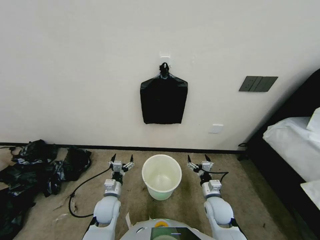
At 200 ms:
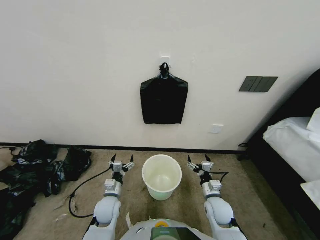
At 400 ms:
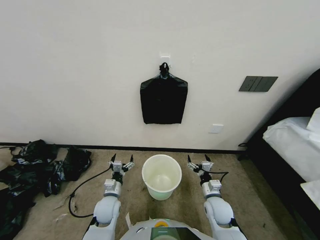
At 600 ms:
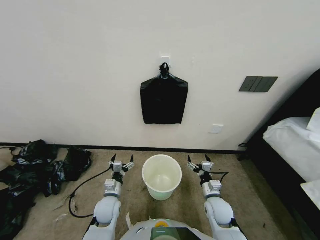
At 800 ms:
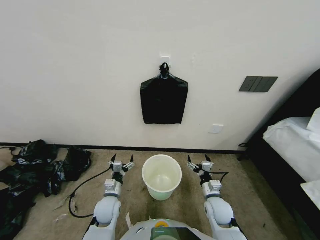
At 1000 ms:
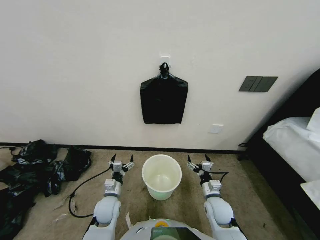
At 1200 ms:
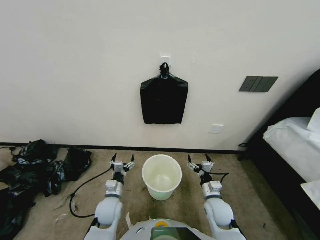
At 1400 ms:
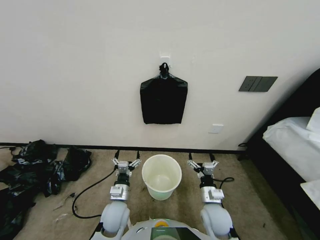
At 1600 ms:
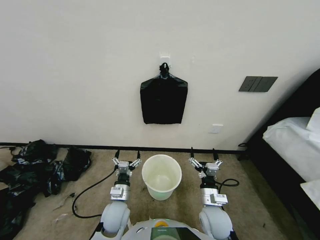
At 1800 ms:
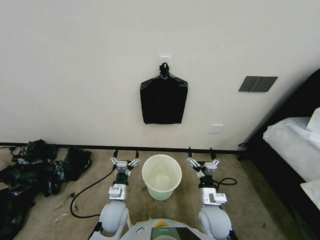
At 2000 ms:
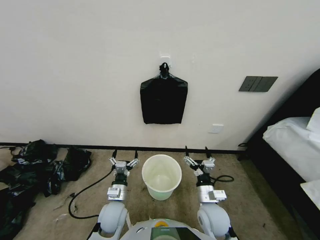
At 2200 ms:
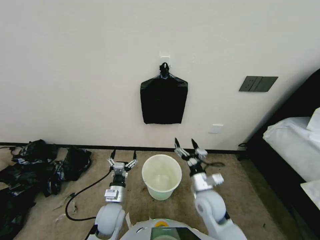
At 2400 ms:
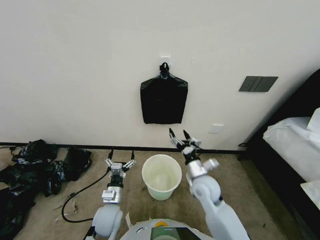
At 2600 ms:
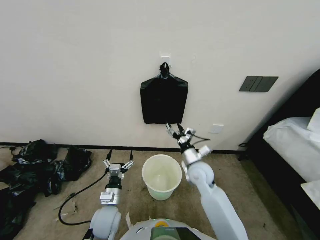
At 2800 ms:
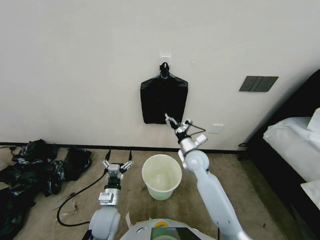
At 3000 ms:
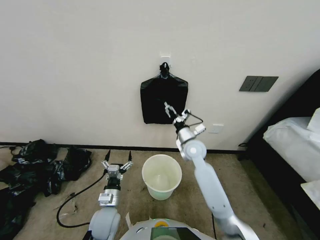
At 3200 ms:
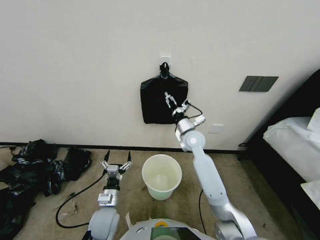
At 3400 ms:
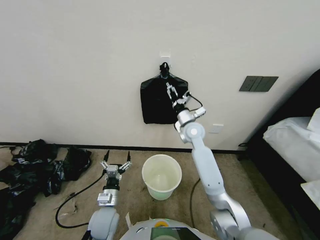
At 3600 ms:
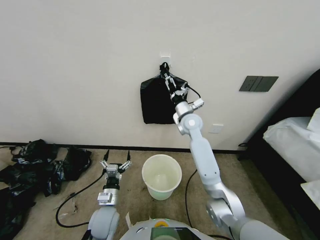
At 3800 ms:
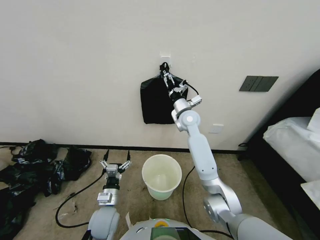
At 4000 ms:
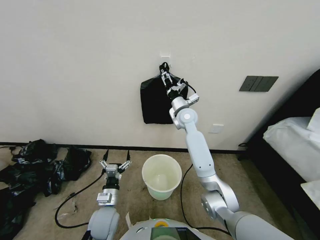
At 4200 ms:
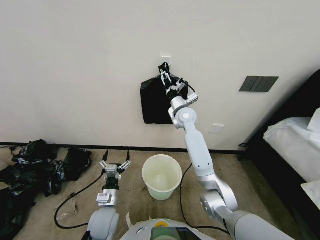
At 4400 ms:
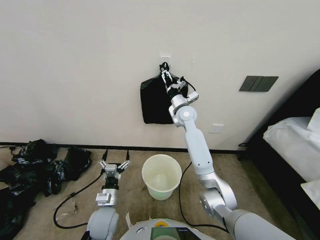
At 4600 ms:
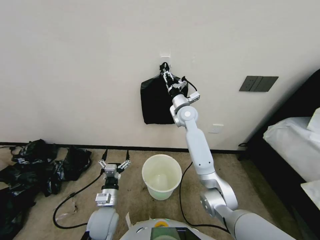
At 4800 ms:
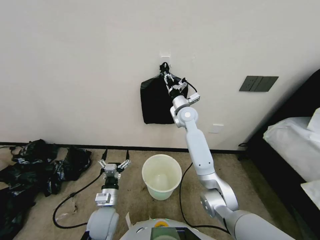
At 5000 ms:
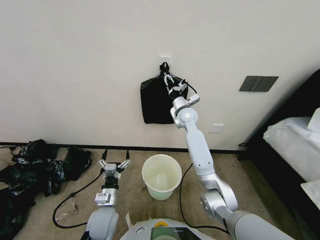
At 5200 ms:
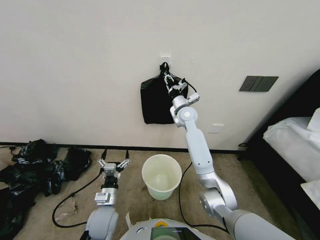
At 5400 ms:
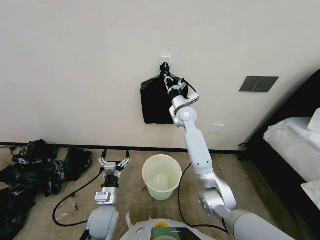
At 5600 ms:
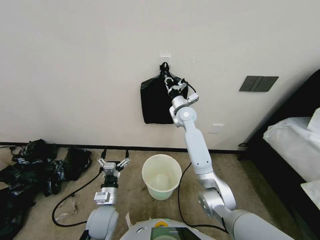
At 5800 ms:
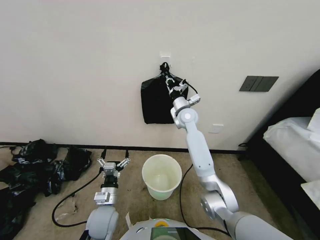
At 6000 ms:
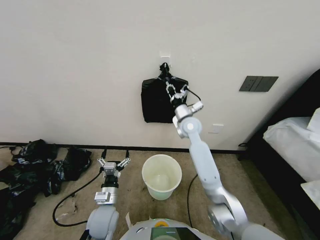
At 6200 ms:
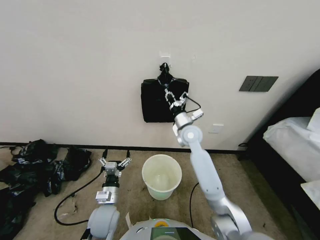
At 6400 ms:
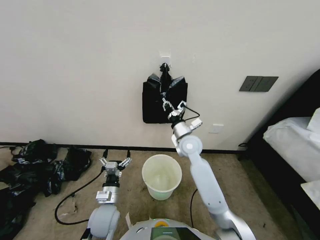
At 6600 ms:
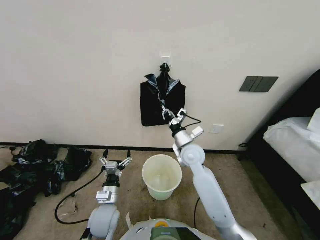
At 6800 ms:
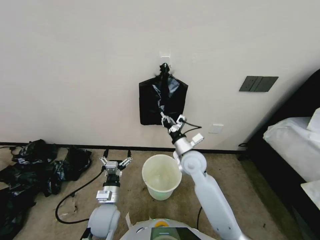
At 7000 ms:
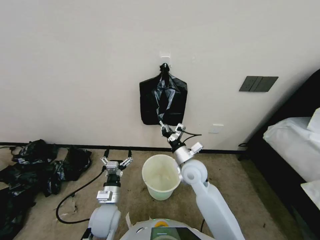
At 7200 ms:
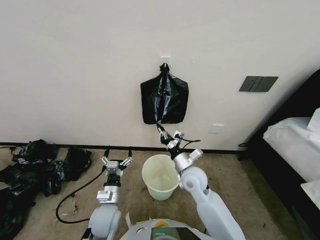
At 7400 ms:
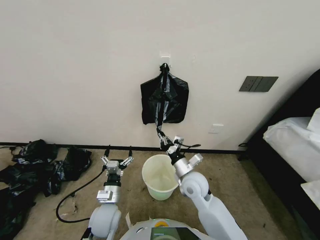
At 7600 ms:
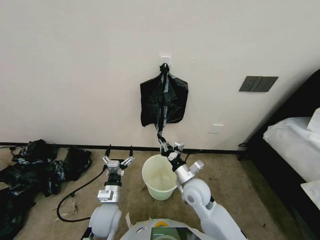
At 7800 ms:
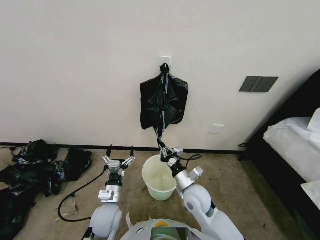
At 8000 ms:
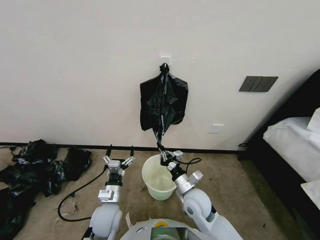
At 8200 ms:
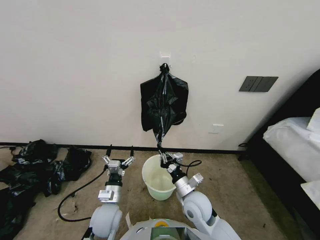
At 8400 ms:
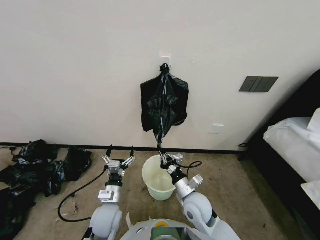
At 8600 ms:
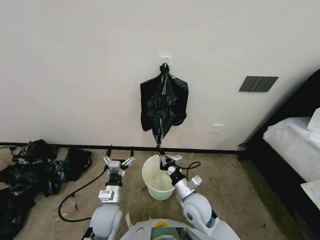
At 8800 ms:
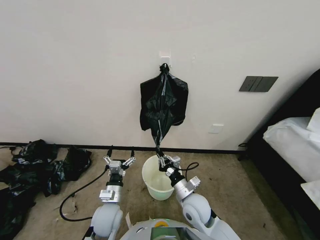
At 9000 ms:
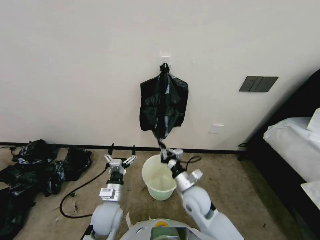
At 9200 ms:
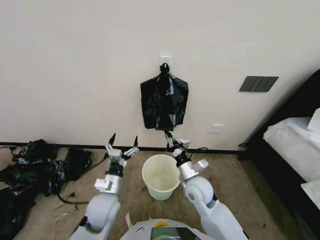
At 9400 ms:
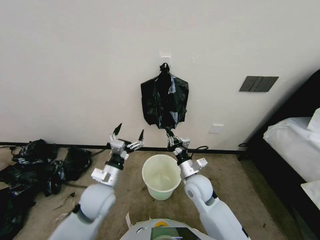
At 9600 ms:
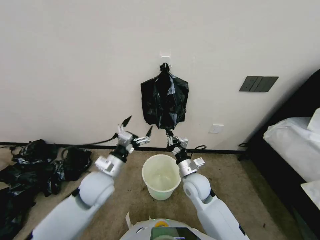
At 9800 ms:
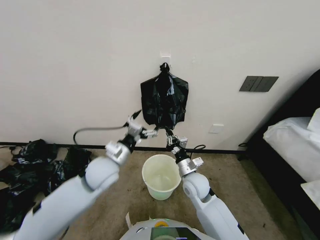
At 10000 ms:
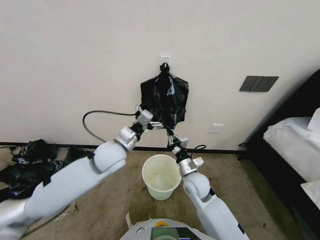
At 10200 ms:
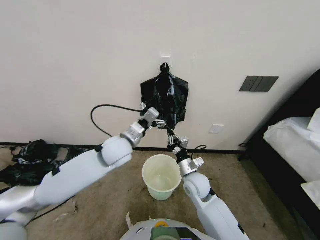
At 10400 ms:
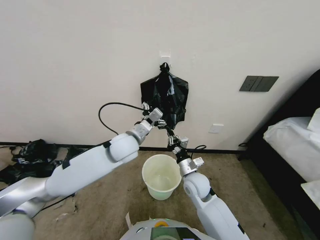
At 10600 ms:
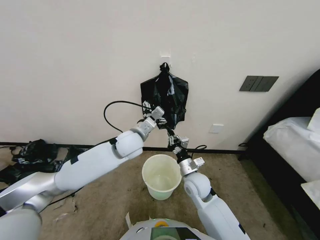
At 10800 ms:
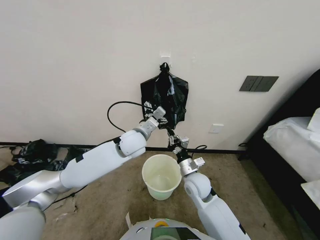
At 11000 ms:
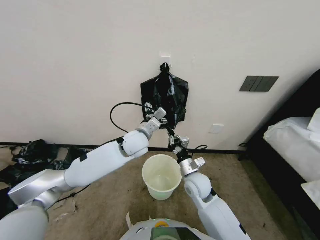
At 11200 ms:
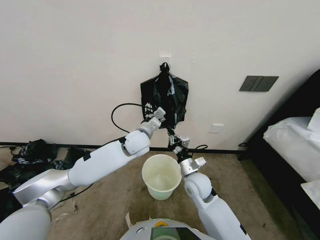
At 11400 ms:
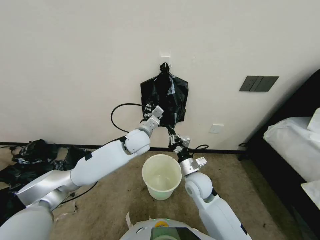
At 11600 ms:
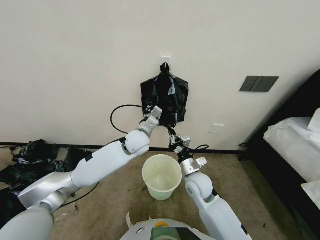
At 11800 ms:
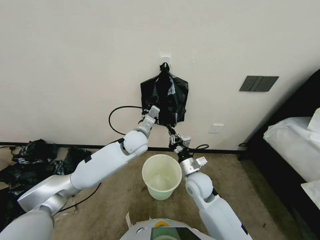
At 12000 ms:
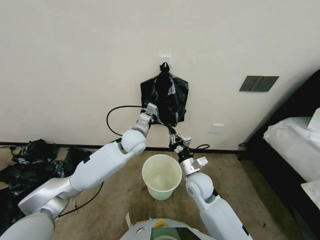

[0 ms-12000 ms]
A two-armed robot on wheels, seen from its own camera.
Task of the whole recording: Place a trash bag onto the trash bin.
1600 ms to 3000 ms: The right gripper moves forward and upward, approximately 25 cm.
3000 ms to 4400 ms: The right gripper heads forward and upward, covering approximately 15 cm.
4400 ms to 6000 ms: The right gripper closes its fingers.
6000 ms to 7600 ms: The right gripper travels backward and downward by some 25 cm.
7600 ms to 9000 ms: The right gripper changes place by some 5 cm.
9000 ms to 10400 ms: The left gripper moves upward and forward, roughly 25 cm, while the right gripper is displaced forward by approximately 5 cm.
10400 ms to 12000 ms: The left gripper is displaced forward by roughly 5 cm, and closes.

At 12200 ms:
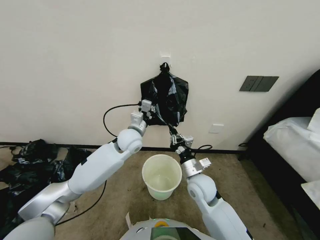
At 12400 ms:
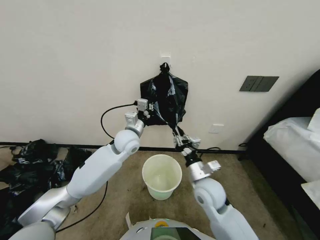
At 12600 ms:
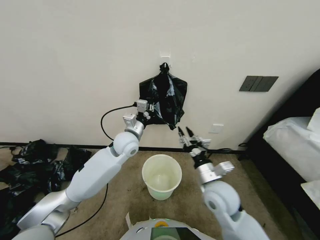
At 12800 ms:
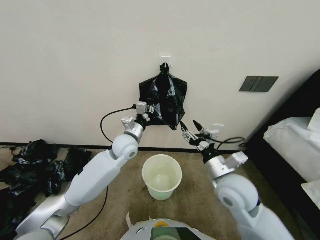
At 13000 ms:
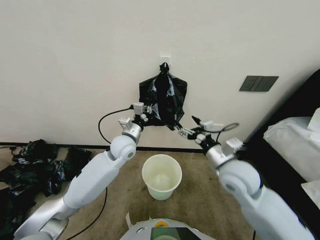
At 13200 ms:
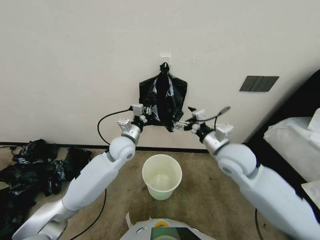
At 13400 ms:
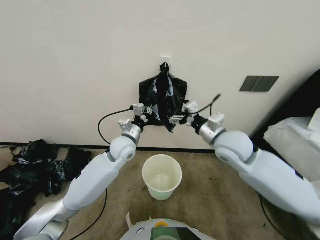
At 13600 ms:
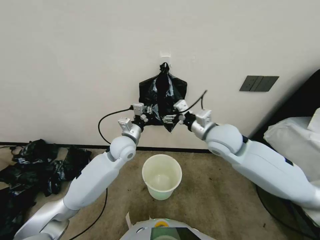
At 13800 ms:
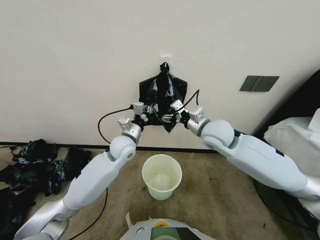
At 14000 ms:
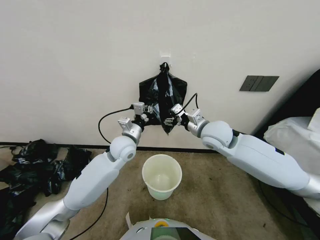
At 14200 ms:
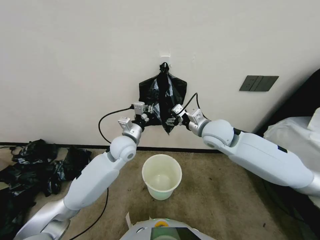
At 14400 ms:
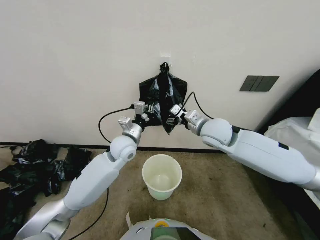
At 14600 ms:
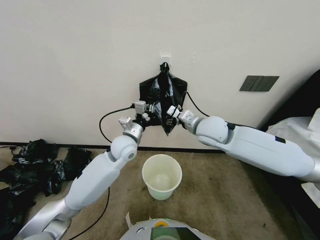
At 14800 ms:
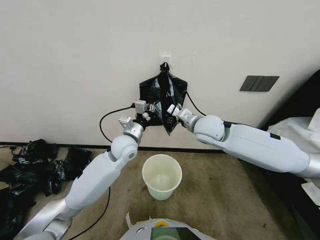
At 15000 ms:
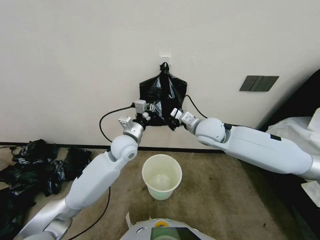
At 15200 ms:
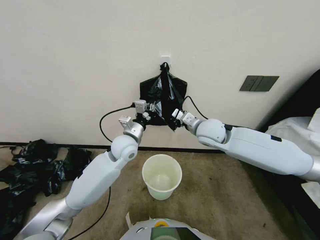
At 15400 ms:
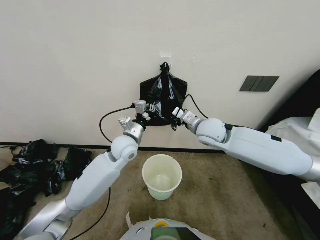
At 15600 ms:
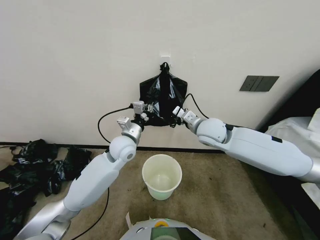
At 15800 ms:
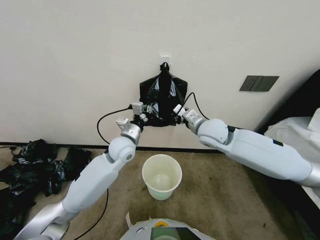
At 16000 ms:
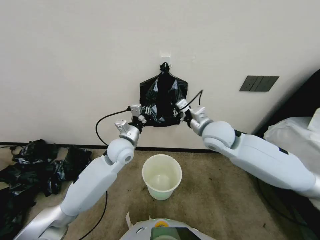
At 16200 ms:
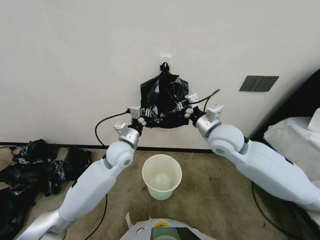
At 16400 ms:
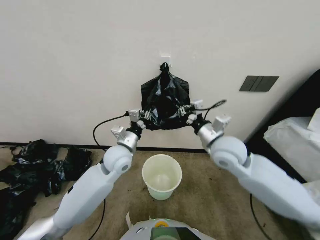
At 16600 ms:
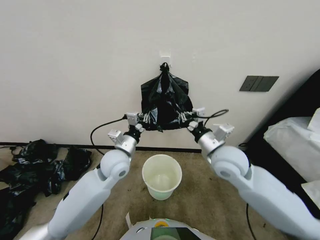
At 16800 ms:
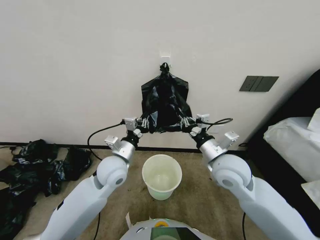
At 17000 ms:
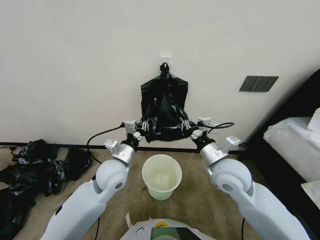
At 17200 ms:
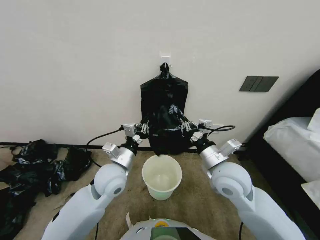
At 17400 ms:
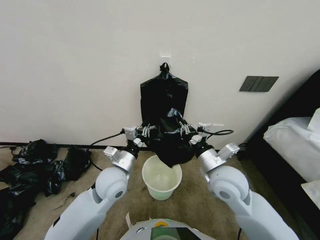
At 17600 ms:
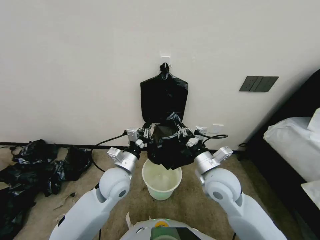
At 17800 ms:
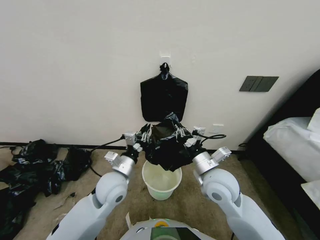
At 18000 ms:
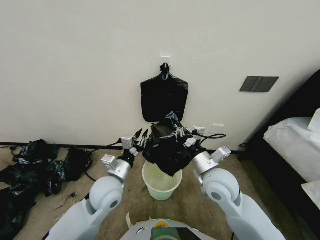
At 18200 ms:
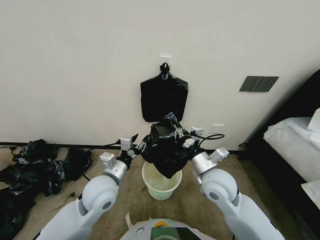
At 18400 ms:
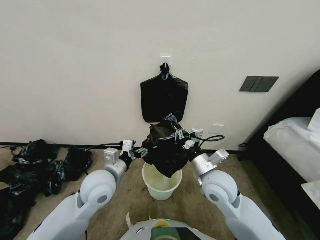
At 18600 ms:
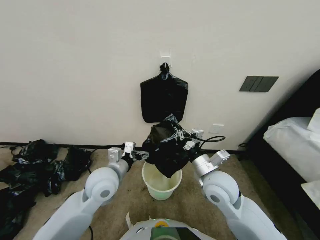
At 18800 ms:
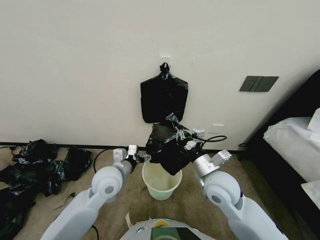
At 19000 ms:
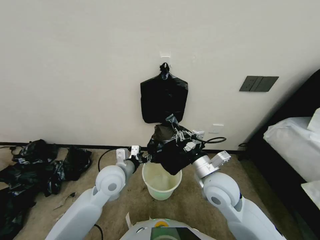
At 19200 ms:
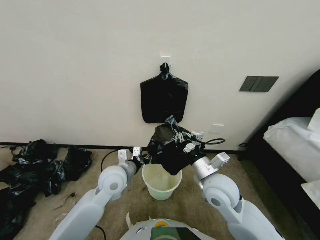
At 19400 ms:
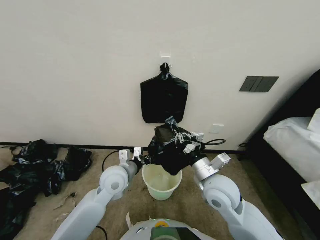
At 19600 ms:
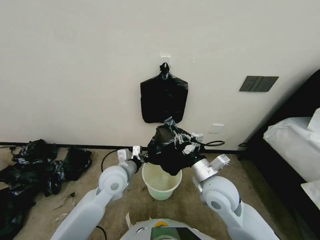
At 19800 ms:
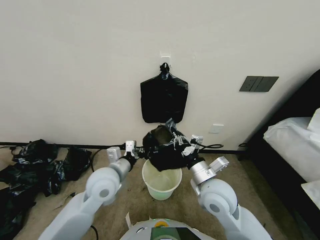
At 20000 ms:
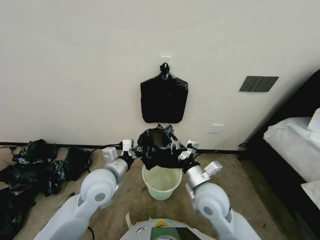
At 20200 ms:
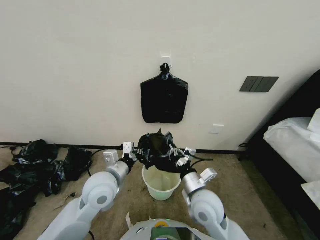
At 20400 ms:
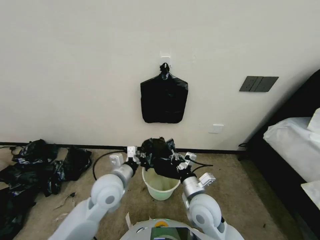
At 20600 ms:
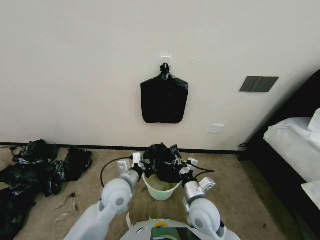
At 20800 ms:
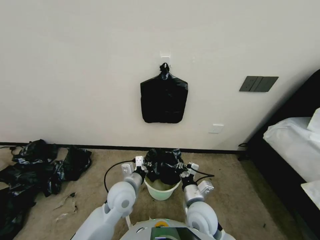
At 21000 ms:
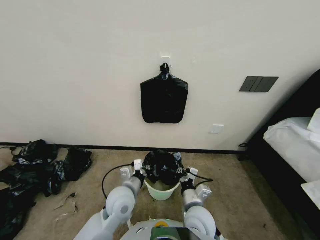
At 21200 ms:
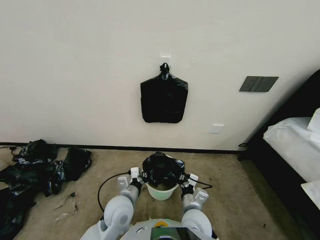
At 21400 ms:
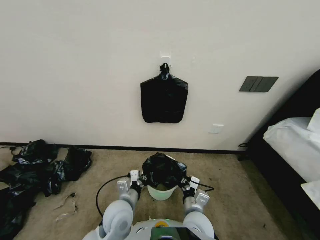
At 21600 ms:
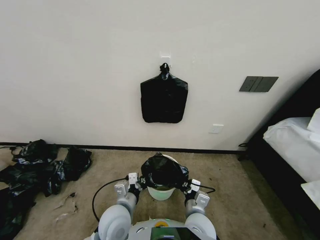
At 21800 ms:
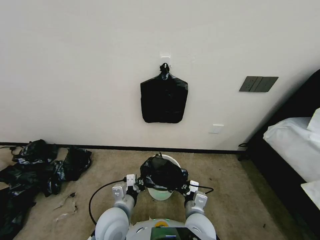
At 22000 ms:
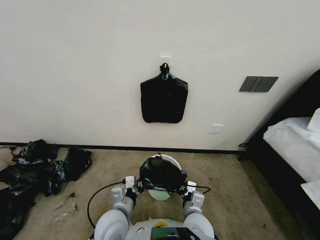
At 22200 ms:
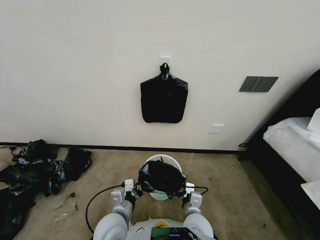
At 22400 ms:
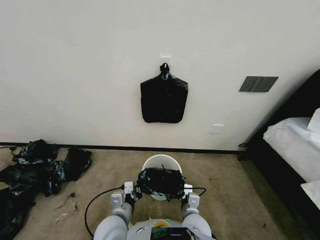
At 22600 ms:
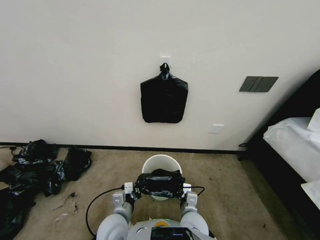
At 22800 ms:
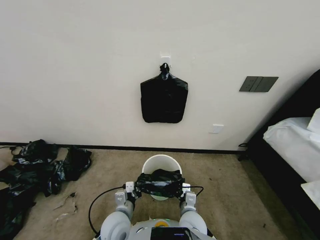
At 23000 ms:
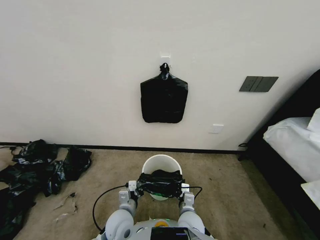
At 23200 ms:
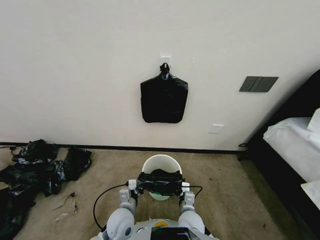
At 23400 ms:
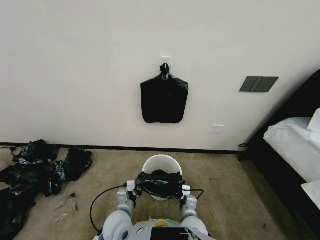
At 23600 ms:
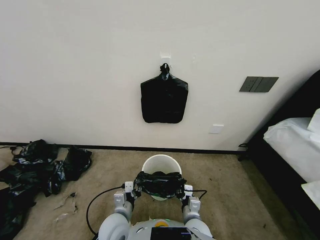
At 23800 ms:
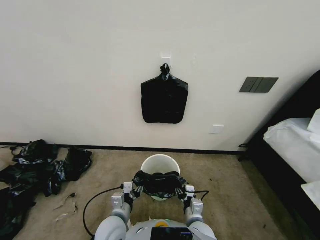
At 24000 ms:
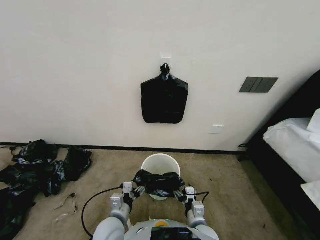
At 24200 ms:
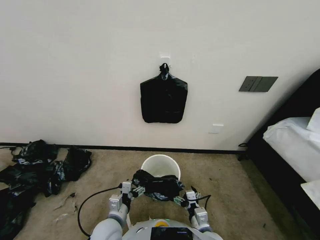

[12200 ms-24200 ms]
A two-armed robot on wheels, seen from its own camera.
Task of the whole recording: Place a trash bag onto the trash bin.
12200 ms to 13800 ms: The right gripper travels upward and forward by approximately 20 cm, and opens its fingers.
13800 ms to 15200 ms: The right gripper closes its fingers.
15200 ms to 16600 ms: The right gripper goes about 10 cm backward. Meanwhile the left gripper shifts by about 5 cm.
16600 ms to 18200 ms: The right gripper goes about 10 cm downward and backward. The left gripper is displaced backward by some 10 cm, and opens up.
18200 ms to 19800 ms: The left gripper closes.
19800 ms to 21200 ms: The right gripper moves downward, backward and to the left, roughly 15 cm. The left gripper heads downward and backward, covering approximately 10 cm.
21200 ms to 22600 ms: The left gripper shifts roughly 5 cm backward.
22600 ms to 24200 ms: The right gripper moves roughly 5 cm, and opens its fingers. Meanwhile the left gripper opens.
